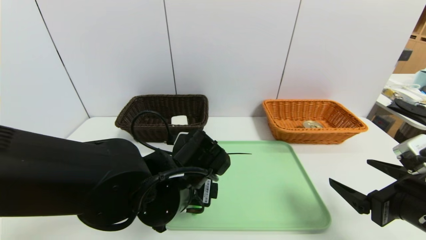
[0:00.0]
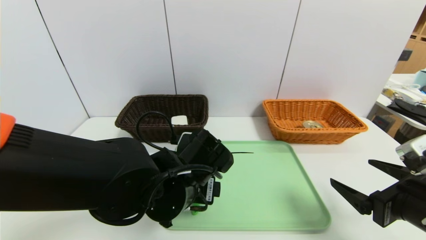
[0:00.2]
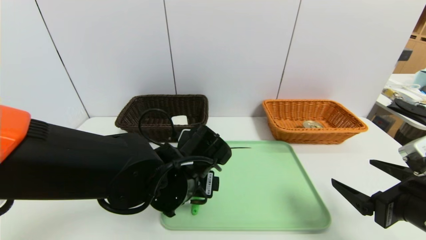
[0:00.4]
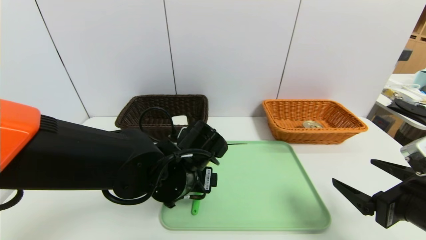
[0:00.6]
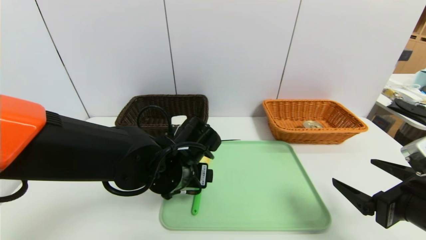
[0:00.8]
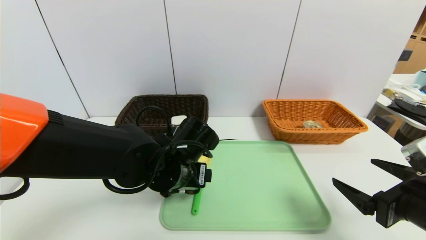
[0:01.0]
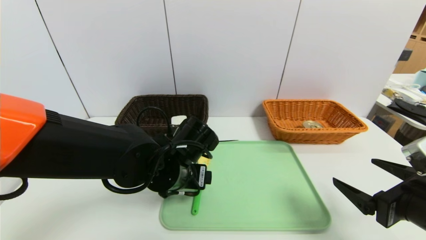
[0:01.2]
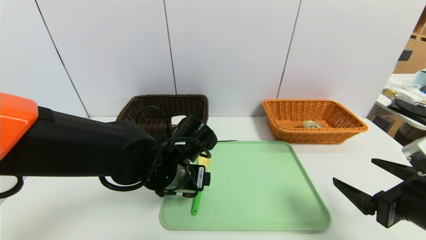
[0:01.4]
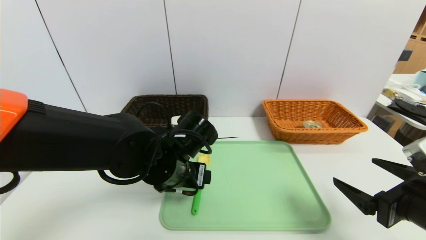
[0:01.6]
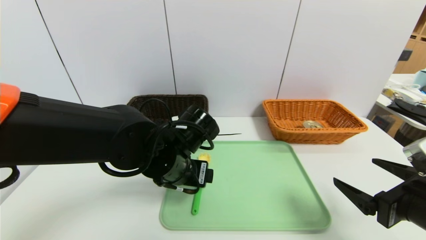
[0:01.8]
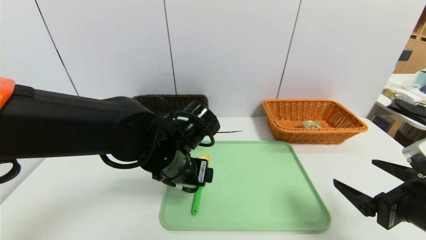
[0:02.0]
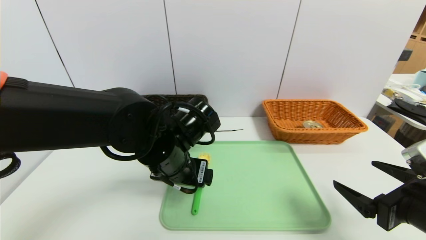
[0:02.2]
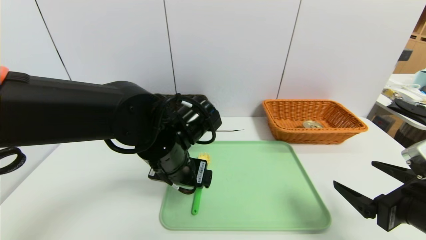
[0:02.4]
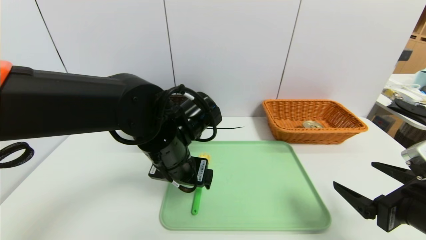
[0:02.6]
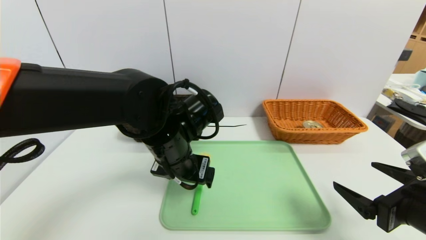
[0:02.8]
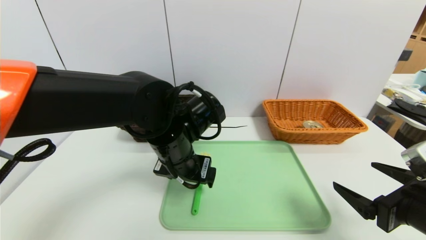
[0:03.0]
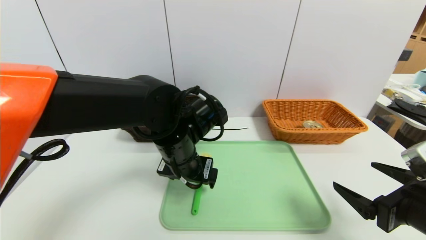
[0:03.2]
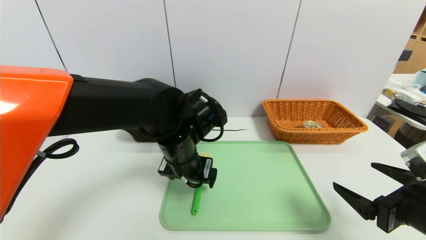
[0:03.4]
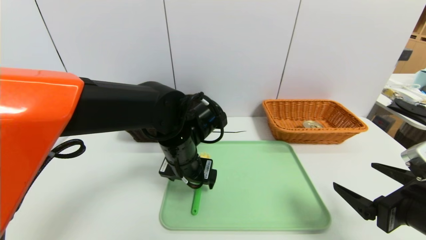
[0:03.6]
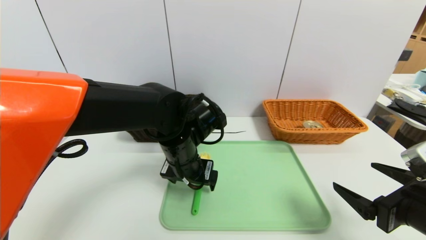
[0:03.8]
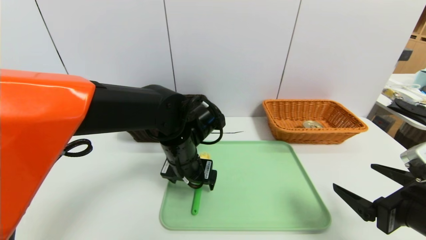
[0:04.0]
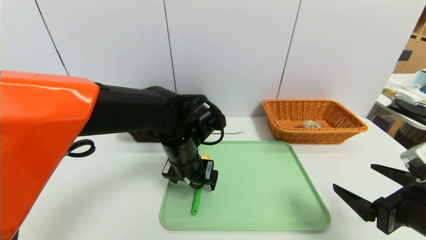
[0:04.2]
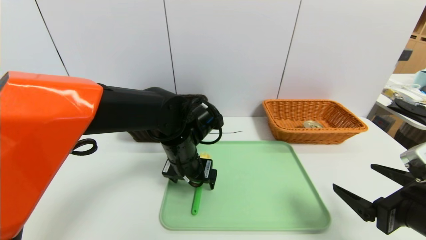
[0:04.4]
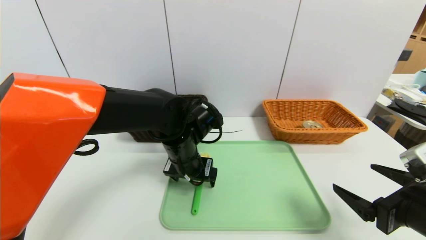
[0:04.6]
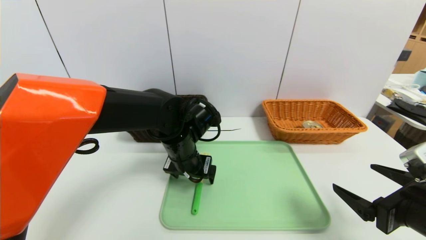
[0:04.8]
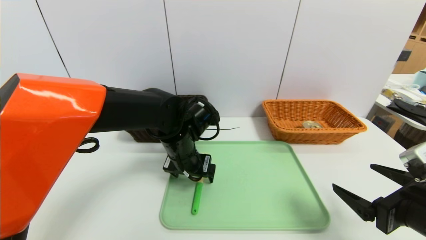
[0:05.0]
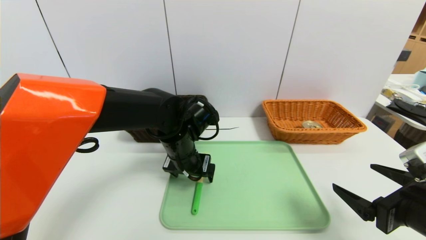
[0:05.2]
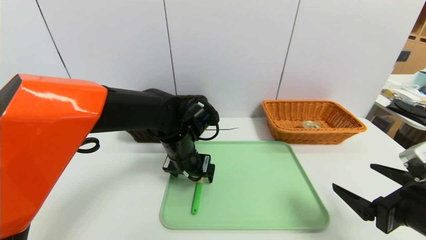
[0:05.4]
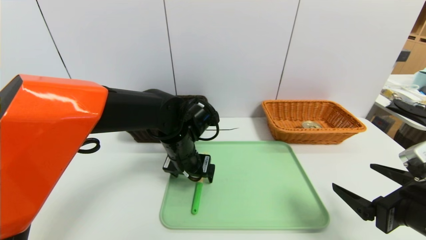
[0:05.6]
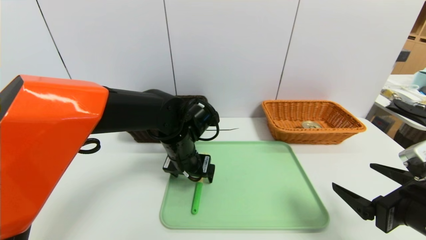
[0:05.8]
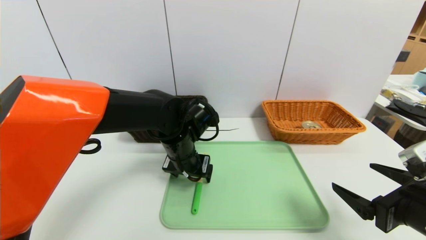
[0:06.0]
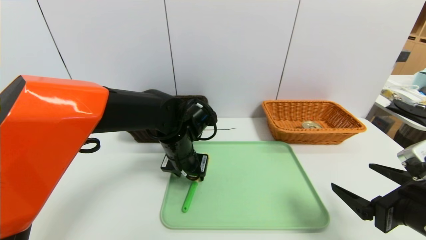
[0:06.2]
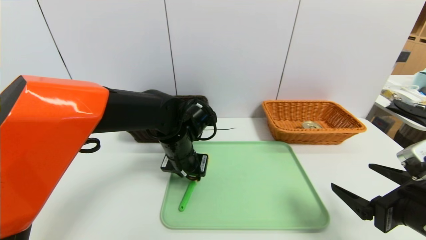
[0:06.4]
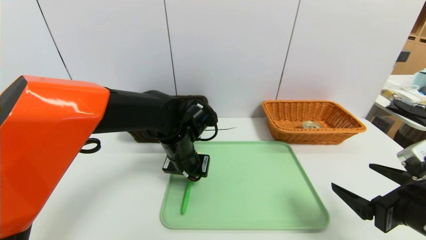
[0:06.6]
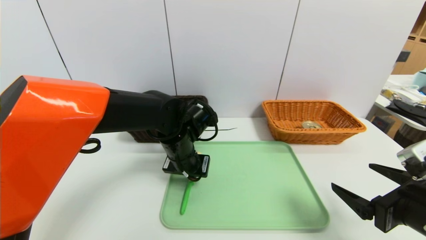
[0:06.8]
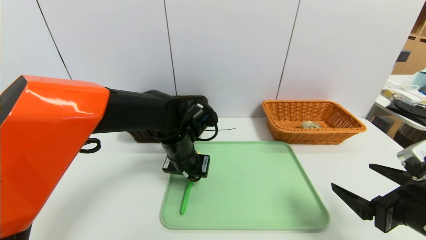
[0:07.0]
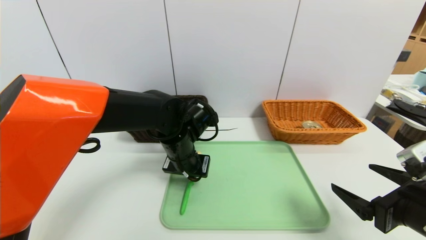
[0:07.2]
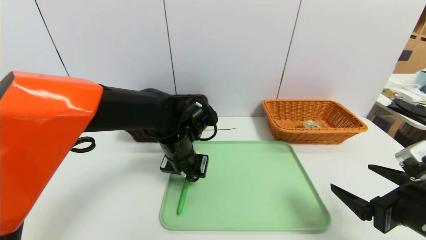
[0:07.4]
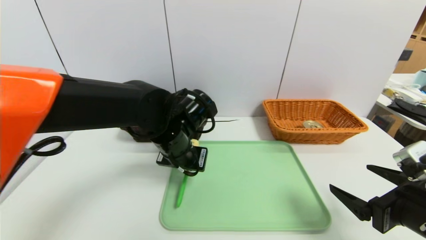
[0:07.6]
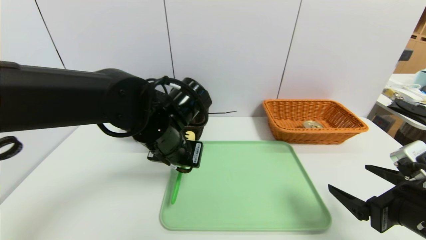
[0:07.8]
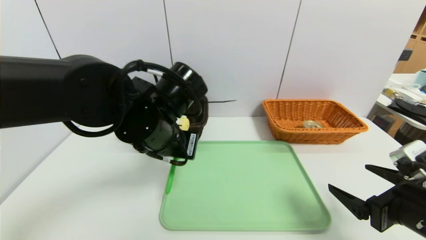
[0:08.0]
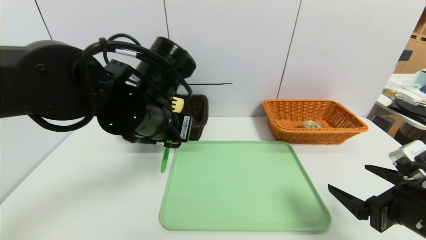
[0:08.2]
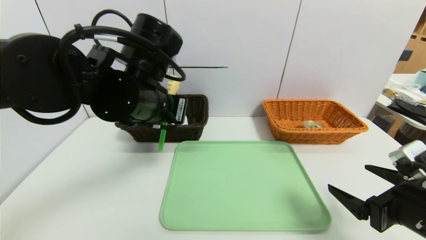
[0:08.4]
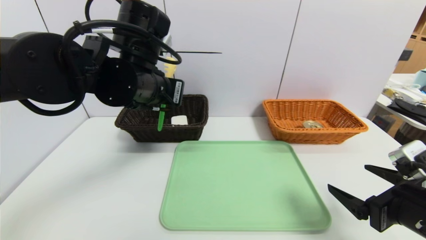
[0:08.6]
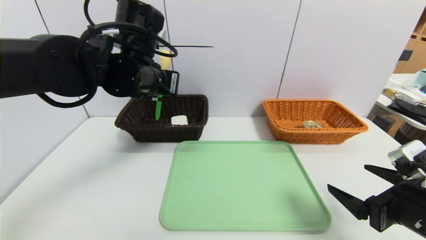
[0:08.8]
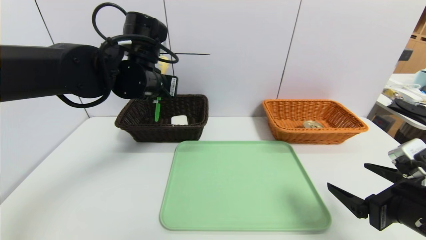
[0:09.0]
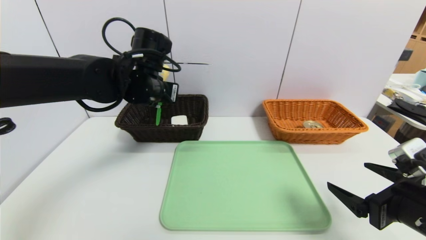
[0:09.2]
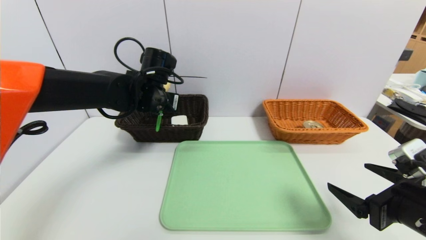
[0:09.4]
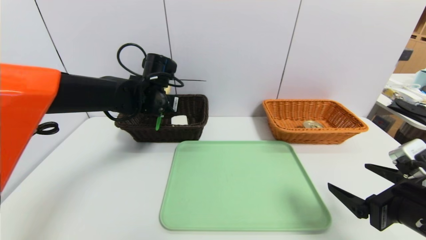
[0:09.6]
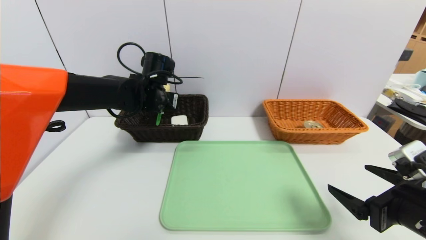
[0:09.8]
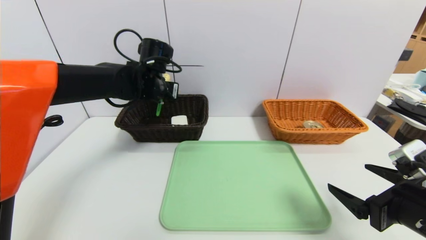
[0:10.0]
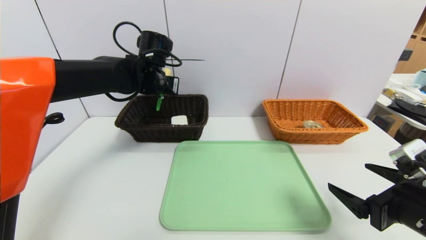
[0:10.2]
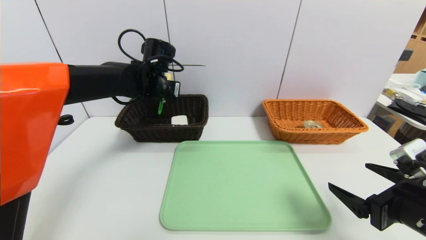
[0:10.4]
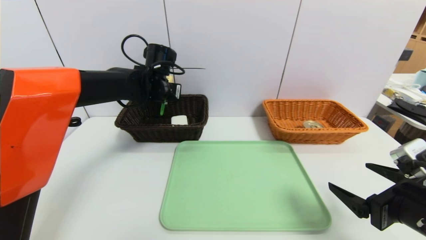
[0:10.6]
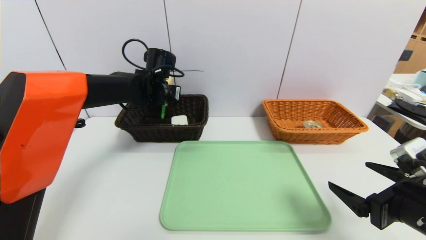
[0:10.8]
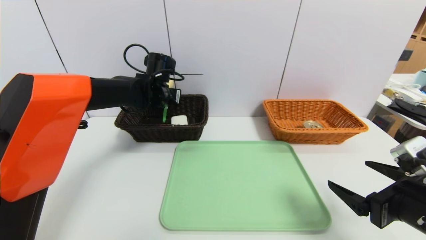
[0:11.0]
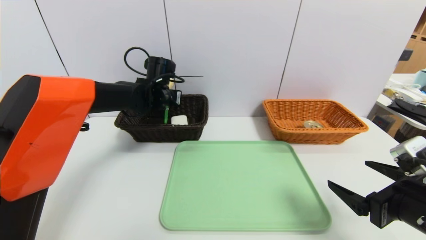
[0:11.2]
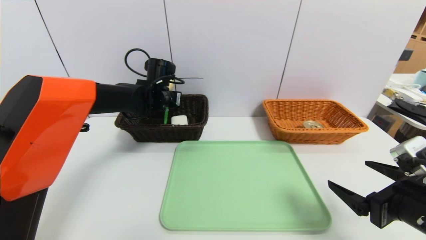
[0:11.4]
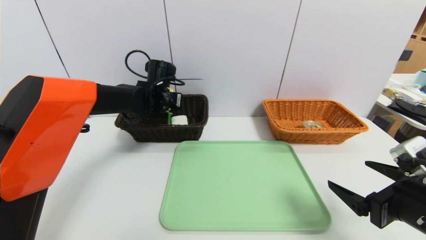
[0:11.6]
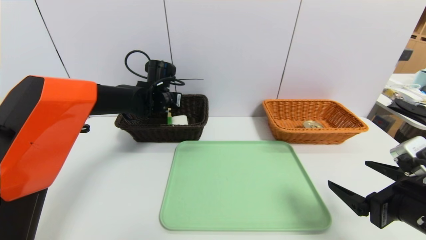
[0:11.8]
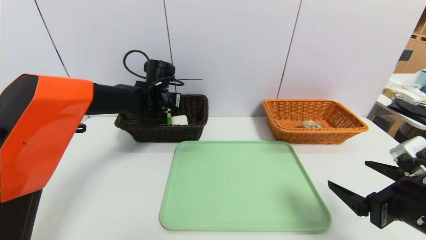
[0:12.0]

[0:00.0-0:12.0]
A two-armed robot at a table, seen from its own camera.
Task of the whole recording: place the food in the right basket with the right gripper, and place the non food items in the left basket with the left gripper.
0:00.0 to 0:01.6: The grippers stay close to where they were, moving slightly.
0:03.0 to 0:04.4: The left gripper moves some 5 cm.
0:04.4 to 0:06.0: The grippers make only small movements.
0:06.0 to 0:07.6: The left gripper shifts about 5 cm upward, and closes up.
0:07.6 to 0:09.0: The left gripper shifts approximately 10 cm upward and to the left.
0:09.0 to 0:10.4: The left gripper moves forward, some 10 cm.
0:10.4 to 0:12.0: The left gripper opens.

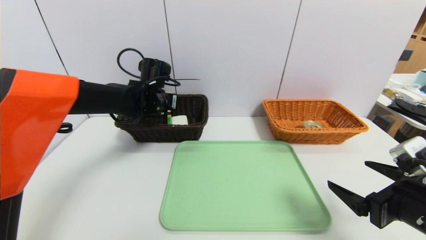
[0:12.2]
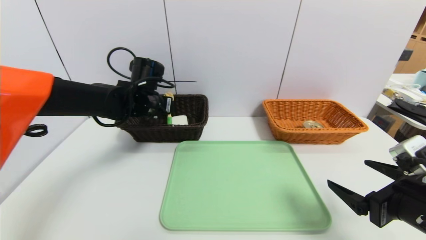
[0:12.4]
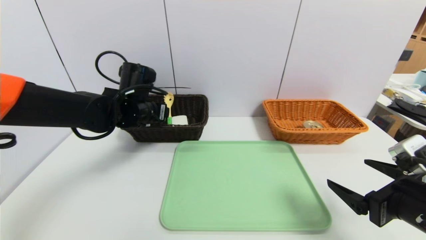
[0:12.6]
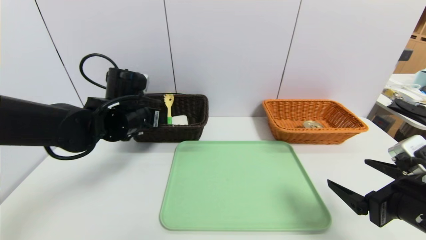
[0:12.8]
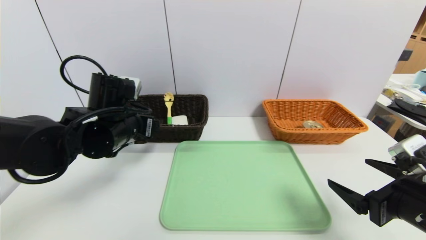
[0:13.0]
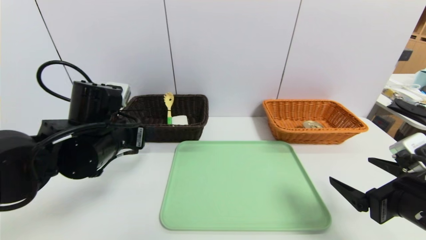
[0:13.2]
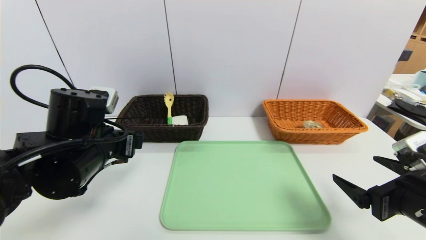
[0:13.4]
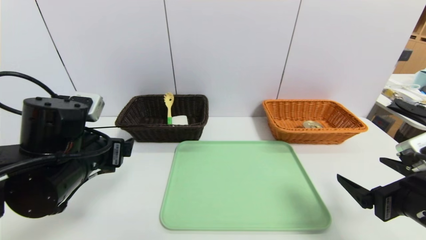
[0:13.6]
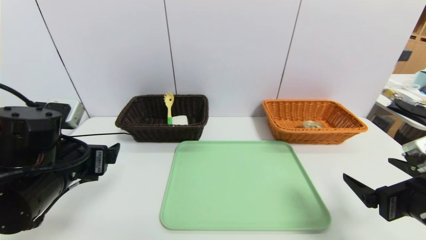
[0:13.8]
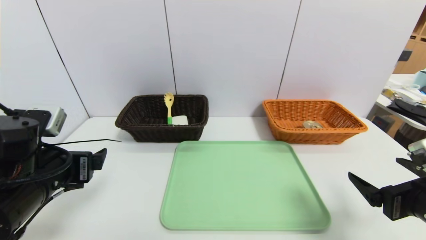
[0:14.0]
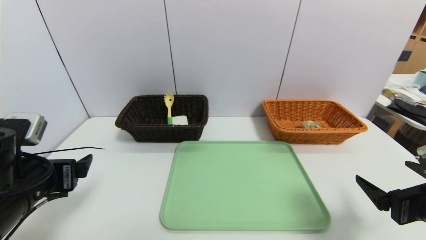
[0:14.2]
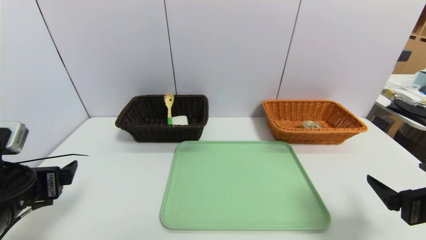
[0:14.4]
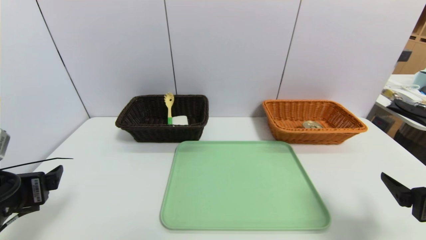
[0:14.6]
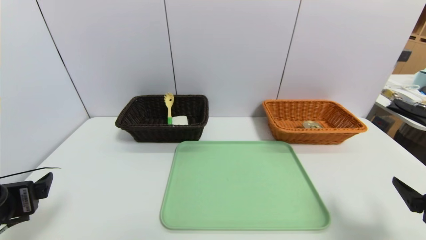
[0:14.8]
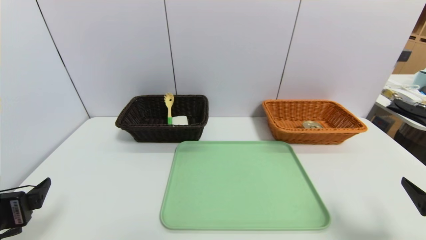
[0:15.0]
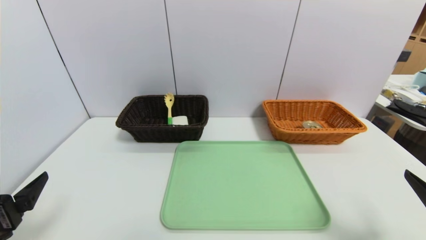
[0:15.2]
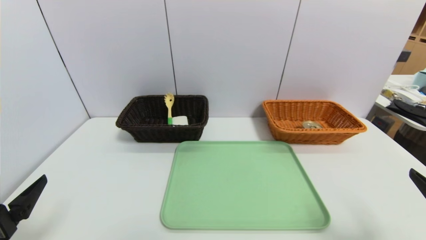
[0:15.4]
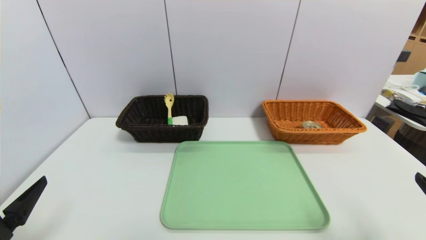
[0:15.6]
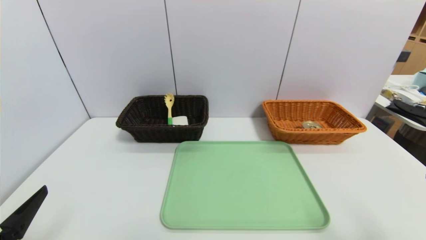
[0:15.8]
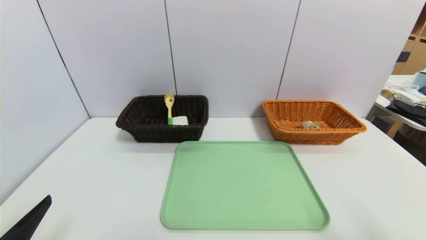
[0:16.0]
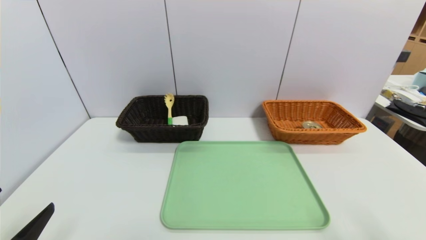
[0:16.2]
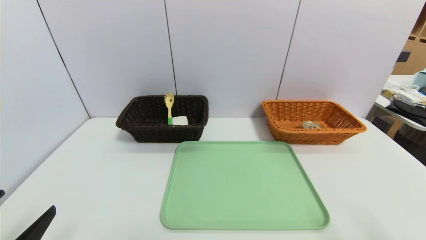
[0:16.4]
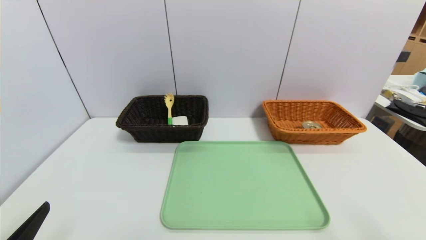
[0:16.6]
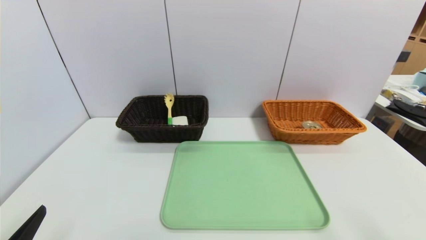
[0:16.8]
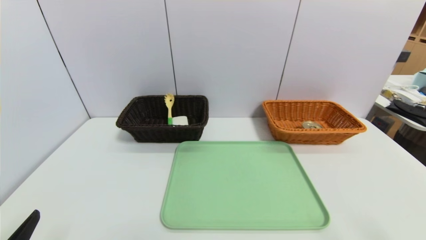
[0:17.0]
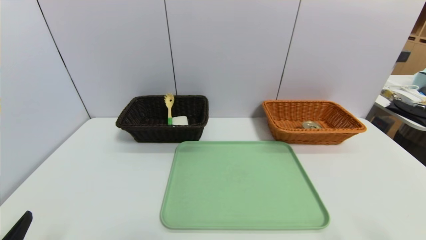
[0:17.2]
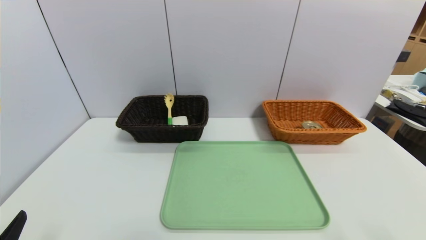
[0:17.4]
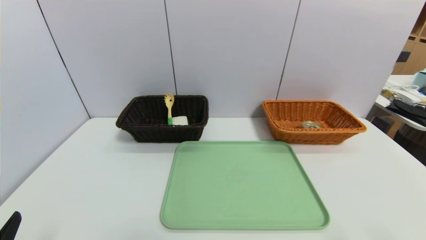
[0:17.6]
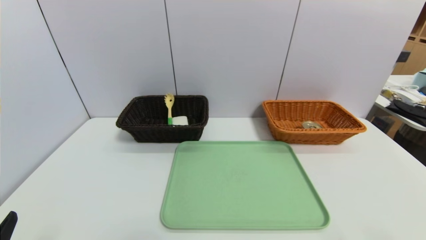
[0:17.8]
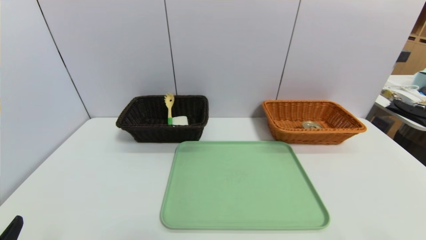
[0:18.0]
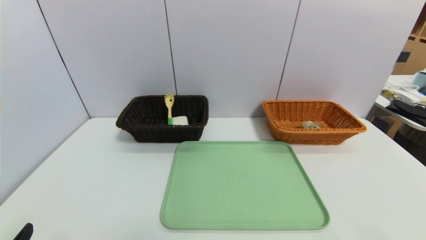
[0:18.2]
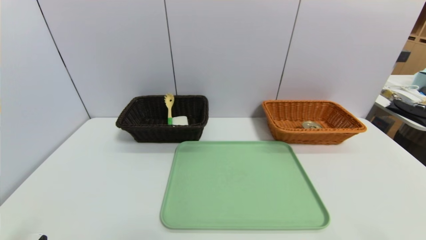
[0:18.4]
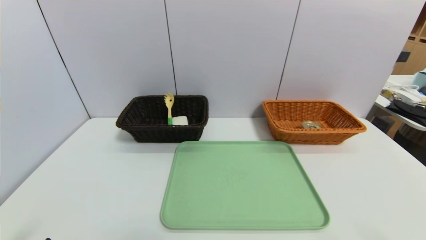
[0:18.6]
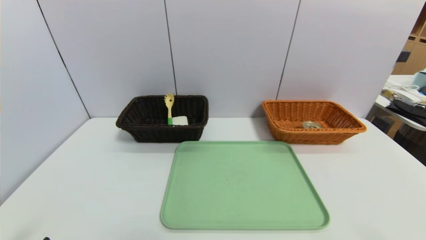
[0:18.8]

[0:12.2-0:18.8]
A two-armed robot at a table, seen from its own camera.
Task of the whole recording: place the food in the right basket with the right gripper, and place the non food items in the left basket with the left gripper.
0:12.2 to 0:13.8: The left gripper travels backward by some 25 cm.
0:13.8 to 0:15.4: The right gripper is displaced backward by about 5 cm. Meanwhile the left gripper shifts about 15 cm backward and to the left.
0:15.4 to 0:17.2: The right gripper shifts by roughly 5 cm. The left gripper is displaced backward by roughly 5 cm.
